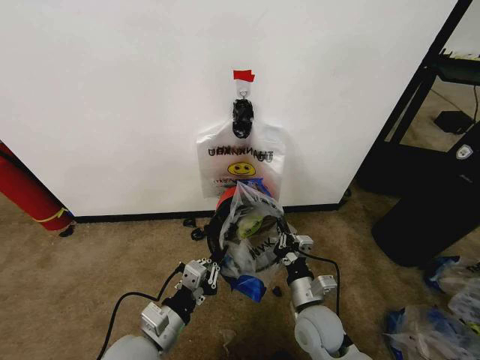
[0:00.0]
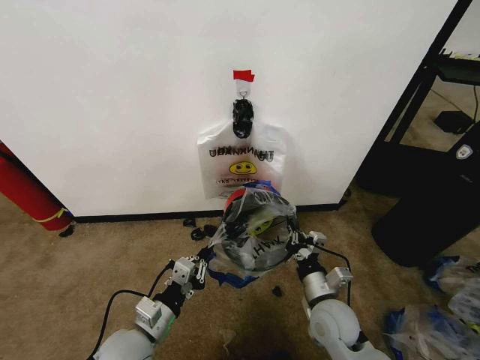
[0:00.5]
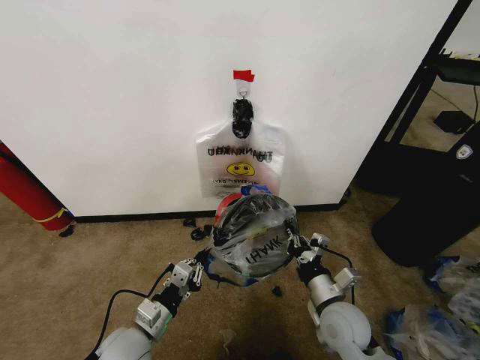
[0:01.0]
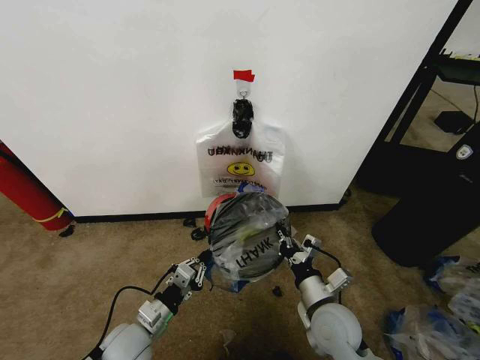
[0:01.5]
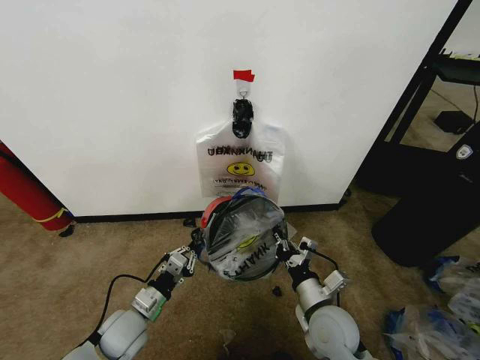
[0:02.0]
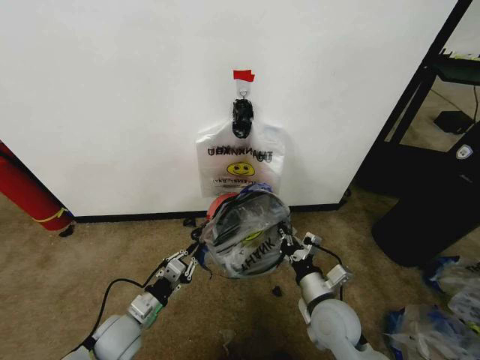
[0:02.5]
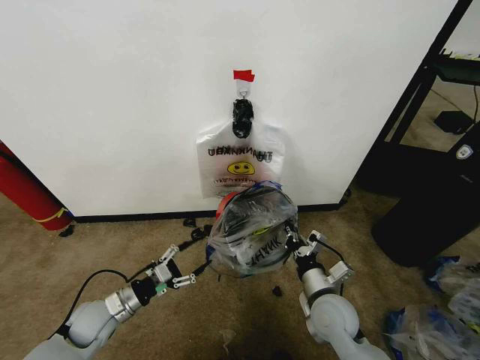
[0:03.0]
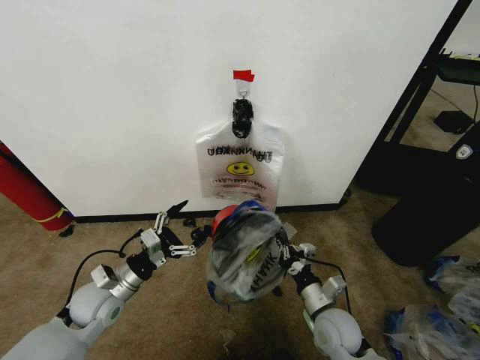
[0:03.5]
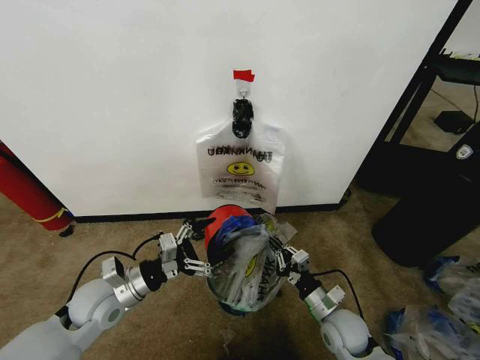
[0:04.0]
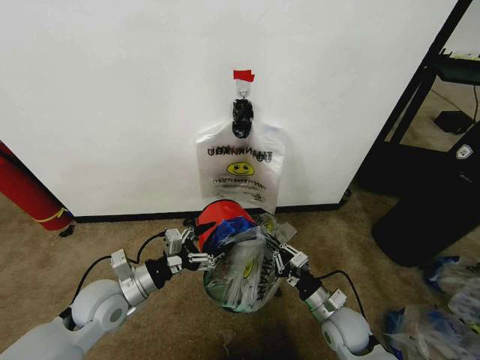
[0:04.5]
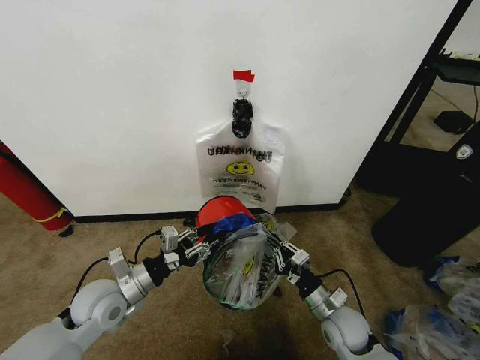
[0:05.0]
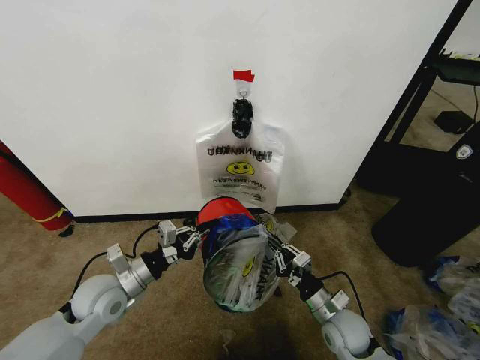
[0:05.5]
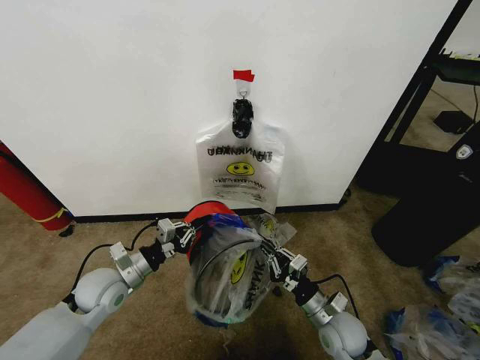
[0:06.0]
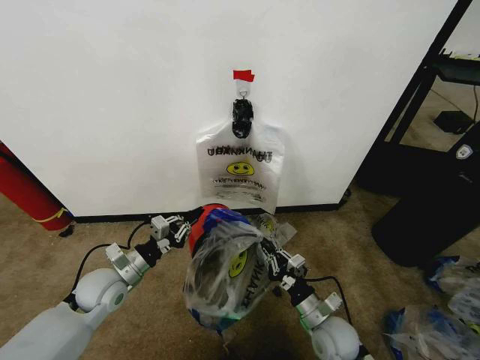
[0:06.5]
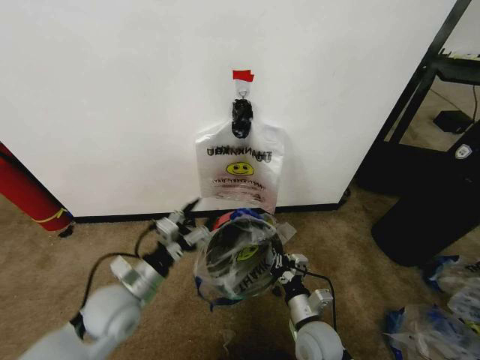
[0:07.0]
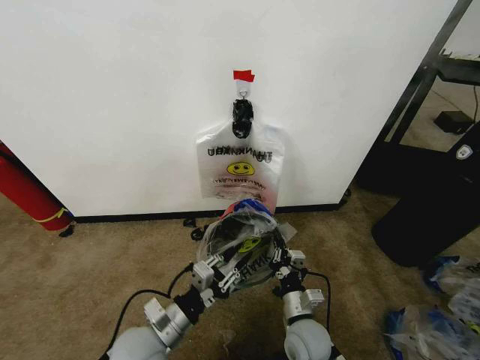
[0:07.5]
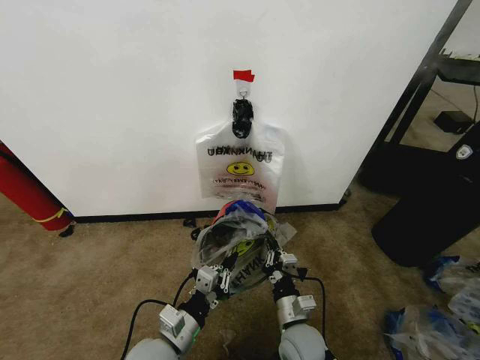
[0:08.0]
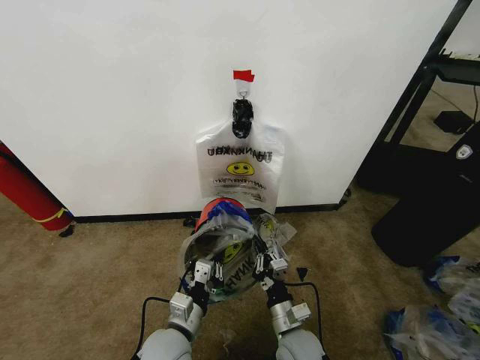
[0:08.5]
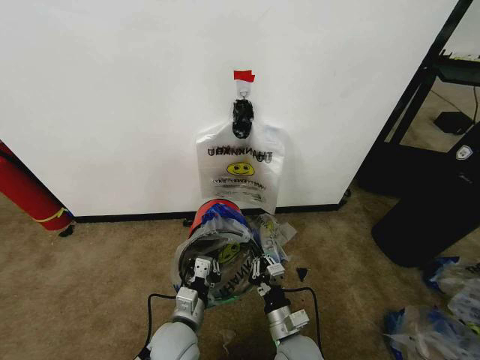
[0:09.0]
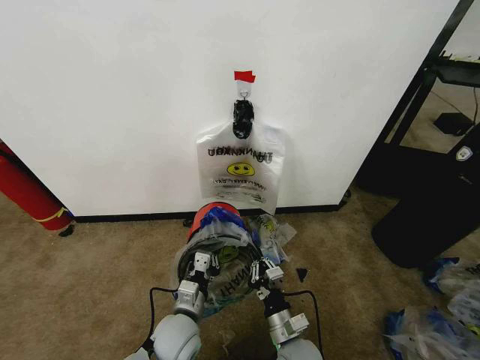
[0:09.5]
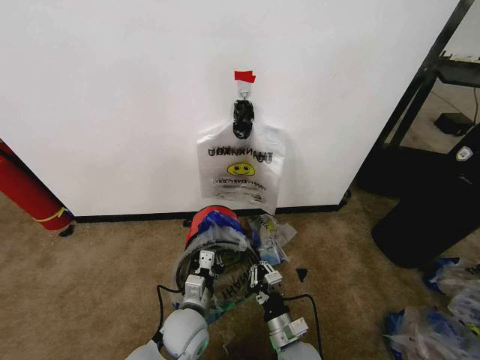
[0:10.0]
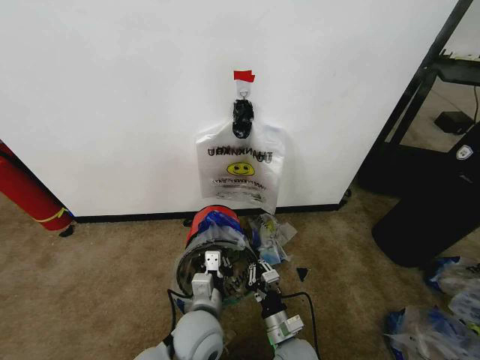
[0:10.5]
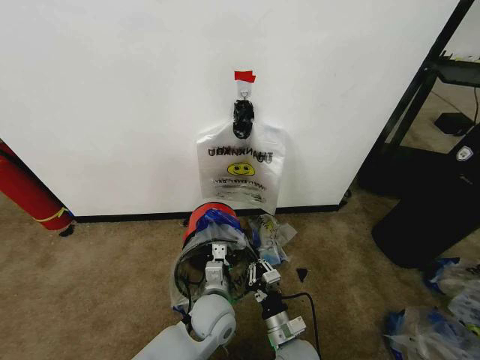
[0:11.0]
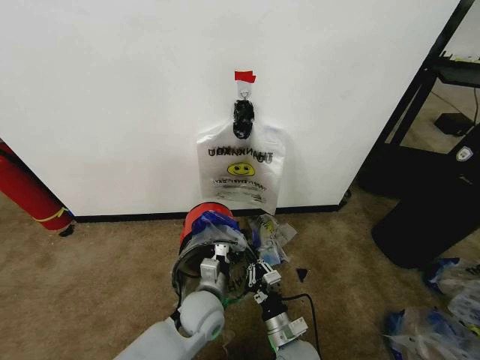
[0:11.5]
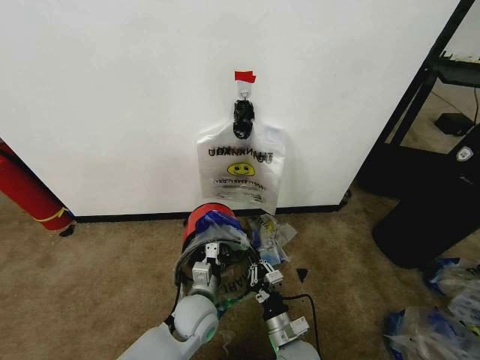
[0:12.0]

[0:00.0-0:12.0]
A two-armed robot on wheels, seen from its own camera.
Task of the whole recording: Pick up the garbage bag from the wall and place it over the trash bin.
0:00.0 to 0:02.0: The left gripper goes approximately 15 cm downward, forward and to the left.
0:02.0 to 0:04.0: The right gripper travels downward by about 5 cm; the left gripper goes about 10 cm upward, and opens up.
0:04.0 to 0:06.0: The left gripper closes up.
0:06.0 to 0:08.0: The right gripper goes about 10 cm to the left. Meanwhile the left gripper heads to the right and backward, covering about 20 cm, and opens, then closes again.
0:08.0 to 0:10.0: The left gripper moves forward, approximately 5 cm.

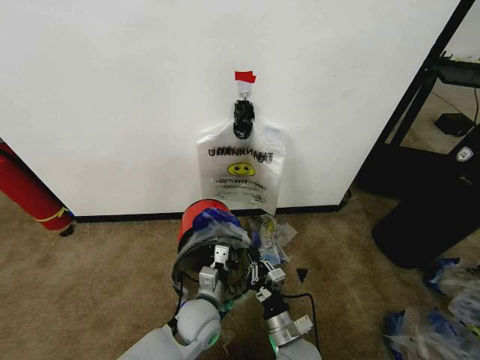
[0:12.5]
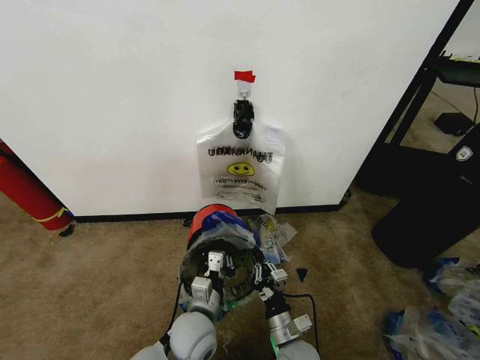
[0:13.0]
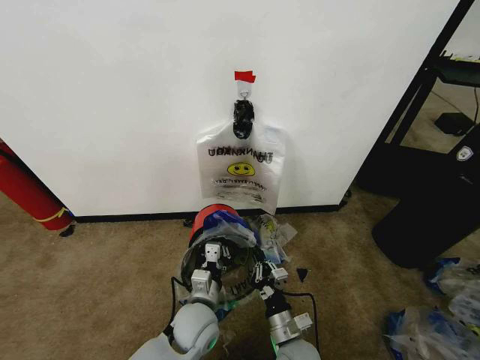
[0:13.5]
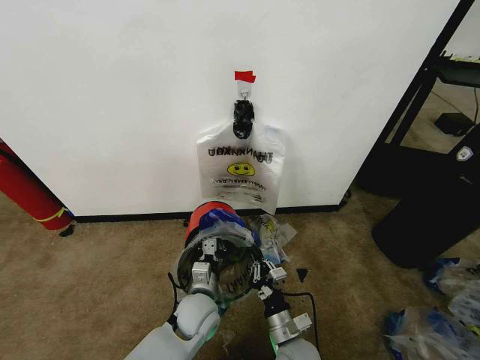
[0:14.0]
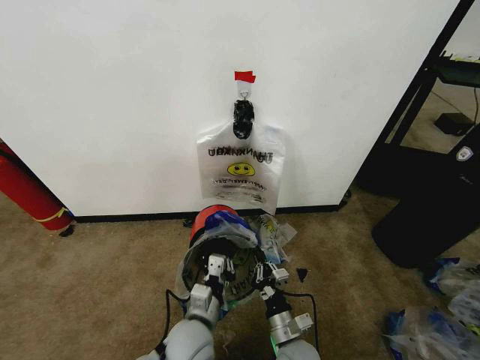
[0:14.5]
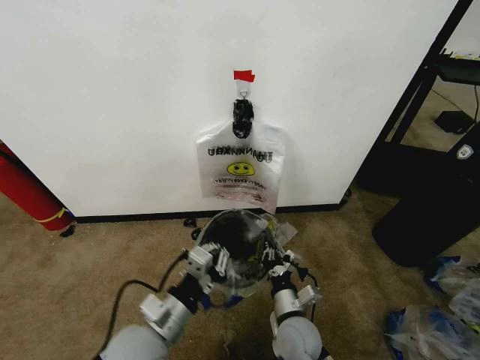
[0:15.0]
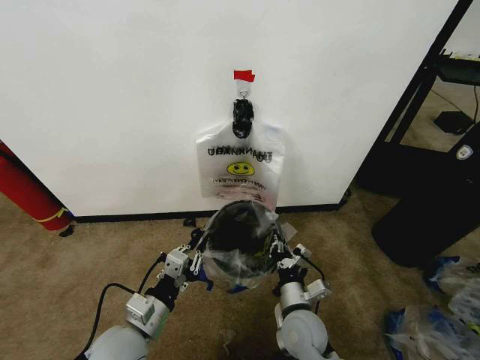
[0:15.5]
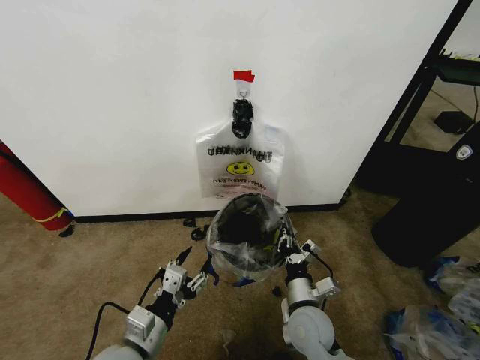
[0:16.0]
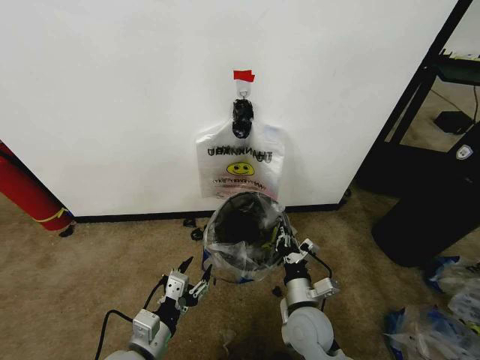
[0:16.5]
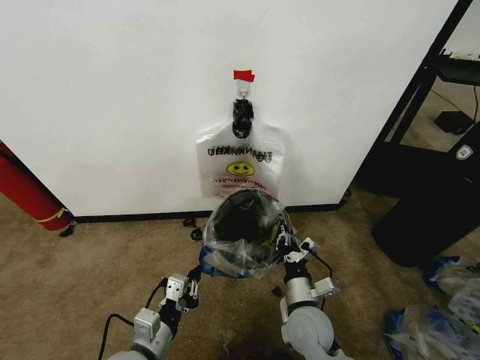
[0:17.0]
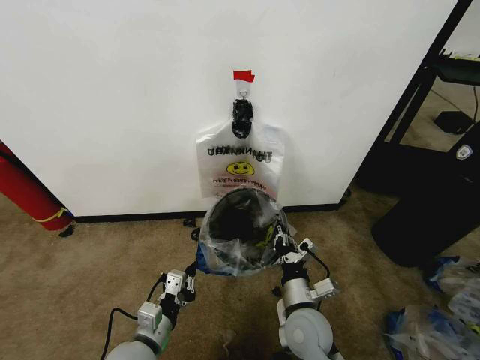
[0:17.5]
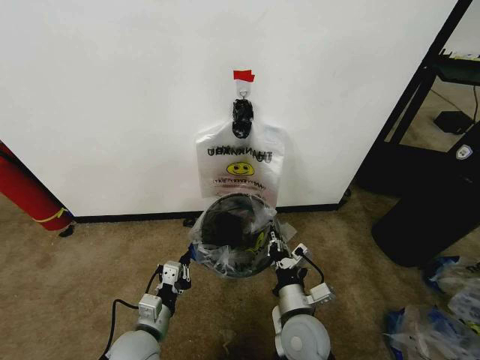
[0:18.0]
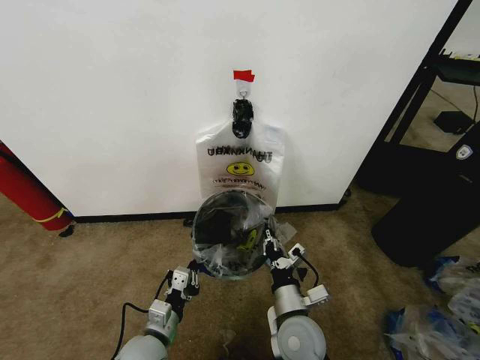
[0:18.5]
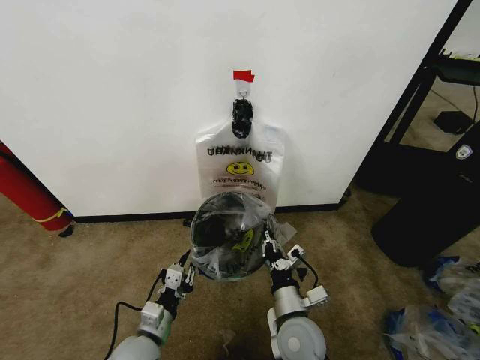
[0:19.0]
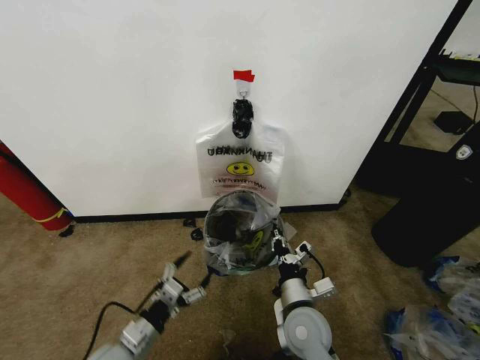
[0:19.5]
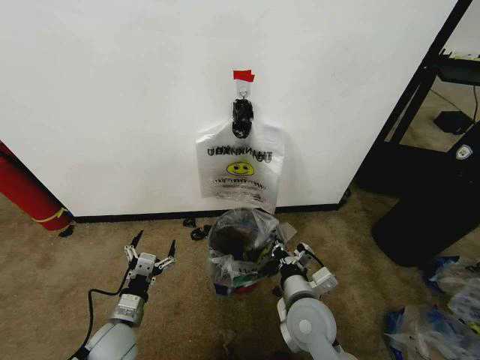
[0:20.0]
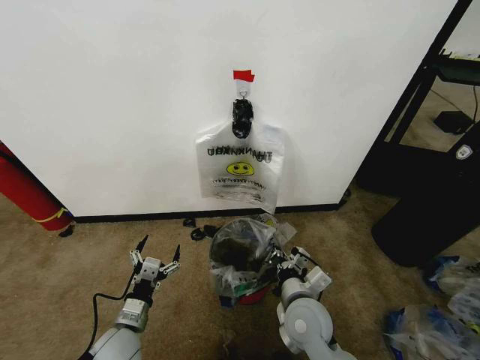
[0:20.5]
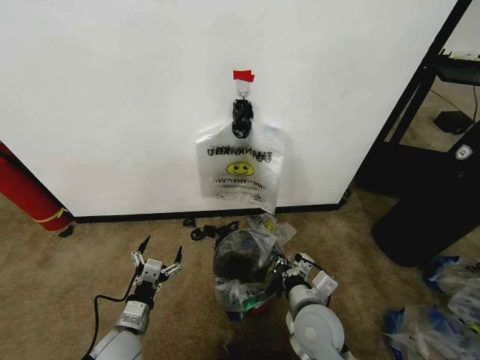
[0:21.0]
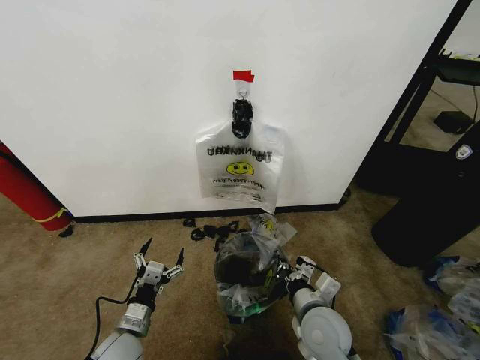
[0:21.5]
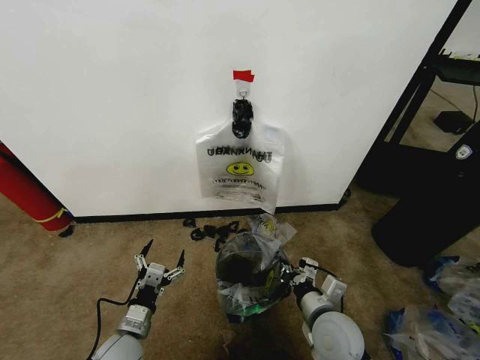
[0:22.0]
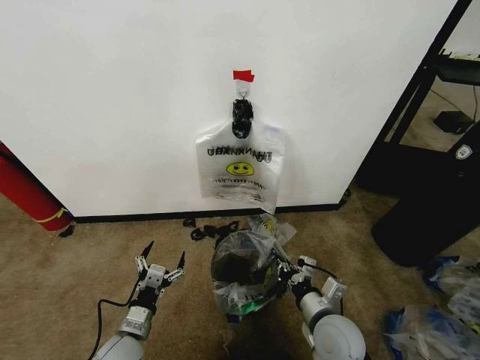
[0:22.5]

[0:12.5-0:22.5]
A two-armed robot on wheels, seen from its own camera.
Task of the whole recording: Pick up the garbage bag from the wall and place it over the trash bin.
0:12.5 to 0:14.5: The left gripper moves some 5 cm.
0:14.5 to 0:16.5: The right gripper travels upward and forward by about 10 cm; the left gripper goes approximately 15 cm to the left, backward and upward, and opens.
0:16.5 to 0:18.5: The left gripper shifts approximately 5 cm downward, and closes up.
0:18.5 to 0:20.5: The left gripper travels to the left by about 5 cm, and opens.
0:20.5 to 0:22.5: The right gripper heads to the right, covering about 5 cm.

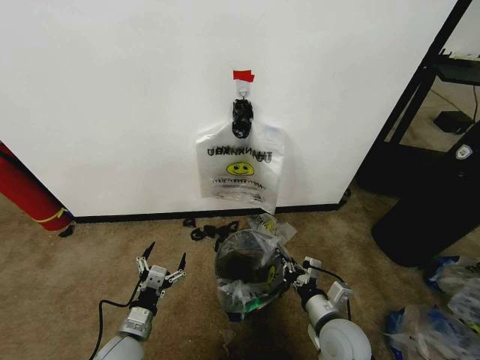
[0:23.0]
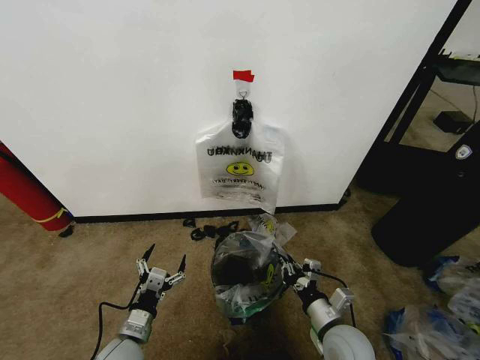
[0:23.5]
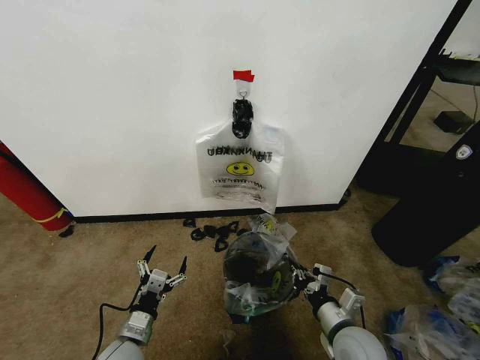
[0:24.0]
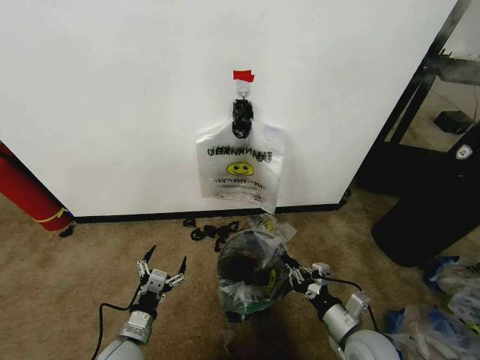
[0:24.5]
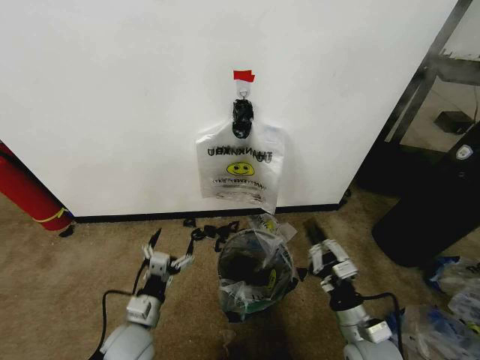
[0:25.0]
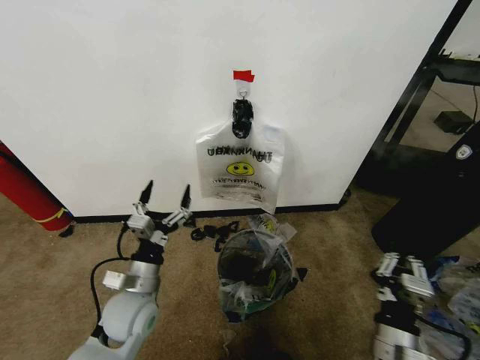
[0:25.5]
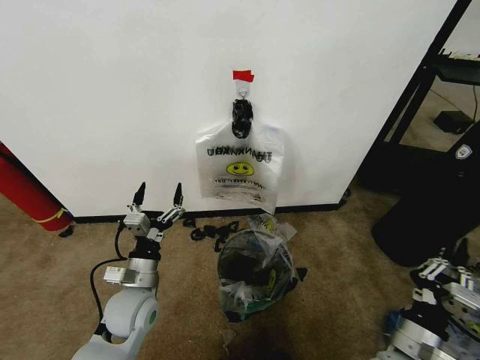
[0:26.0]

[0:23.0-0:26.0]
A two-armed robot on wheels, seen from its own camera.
Task of the whole recording: Pick up the garbage bag from the wall and place it over the trash bin.
0:23.0 to 0:24.5: The right gripper travels to the right by approximately 5 cm.
0:24.5 to 0:26.0: The right gripper shifts by roughly 5 cm. The left gripper goes about 15 cm upward and forward.
